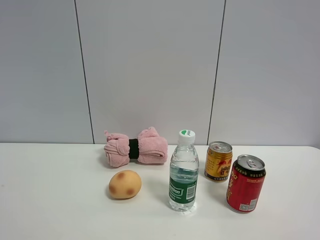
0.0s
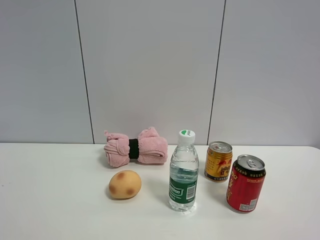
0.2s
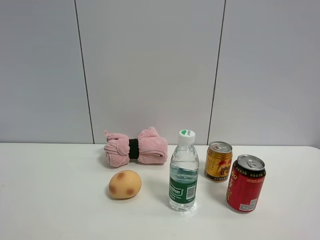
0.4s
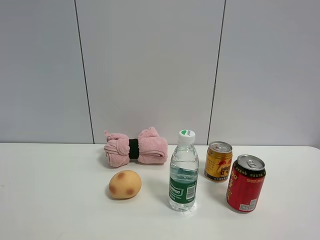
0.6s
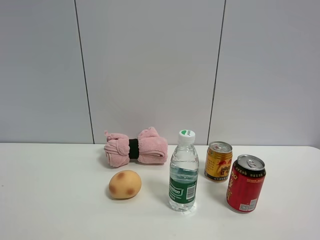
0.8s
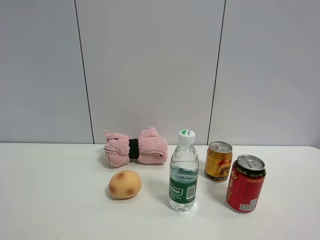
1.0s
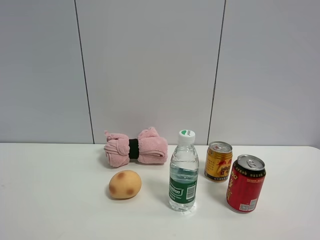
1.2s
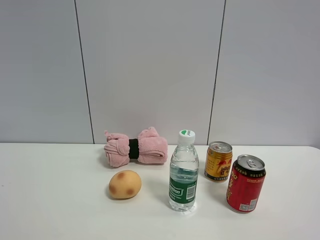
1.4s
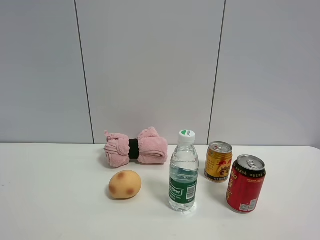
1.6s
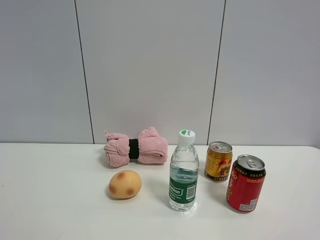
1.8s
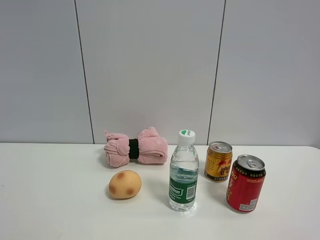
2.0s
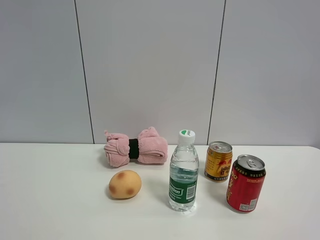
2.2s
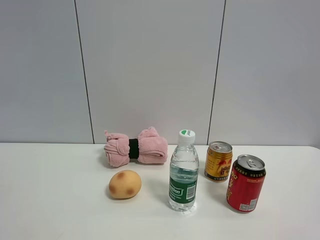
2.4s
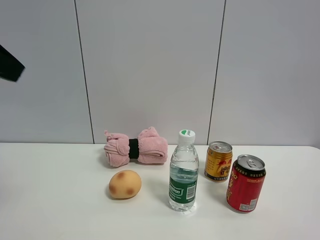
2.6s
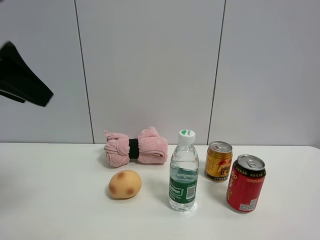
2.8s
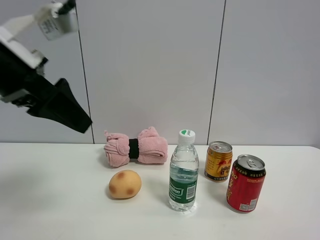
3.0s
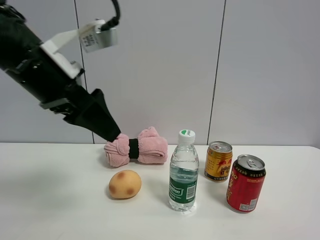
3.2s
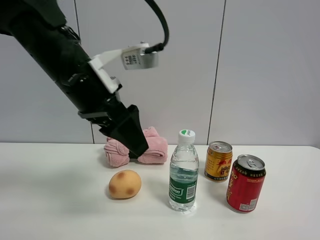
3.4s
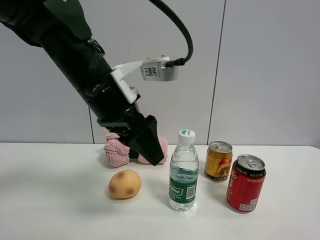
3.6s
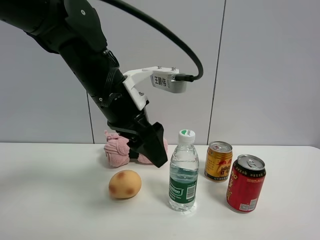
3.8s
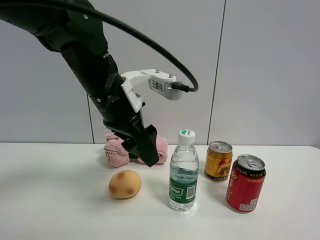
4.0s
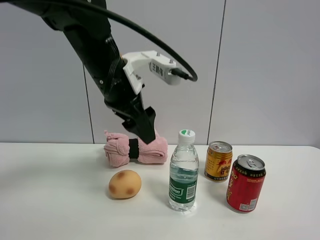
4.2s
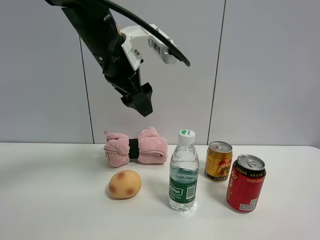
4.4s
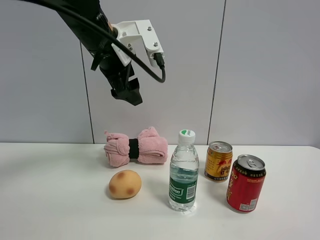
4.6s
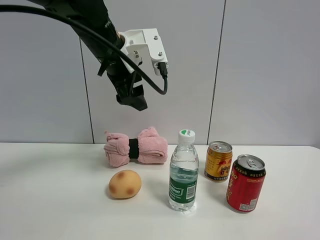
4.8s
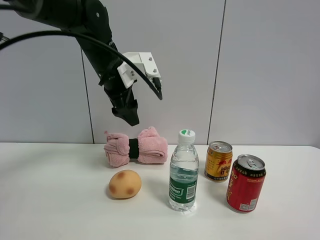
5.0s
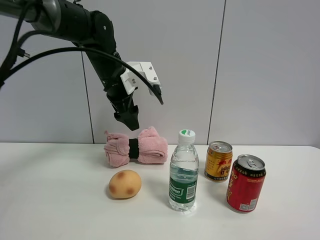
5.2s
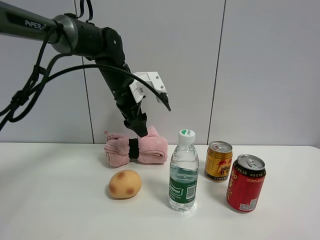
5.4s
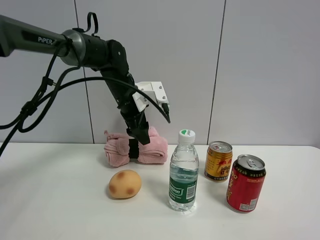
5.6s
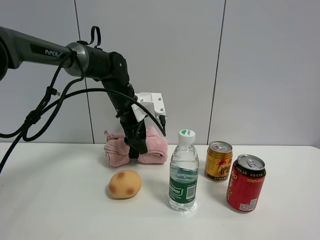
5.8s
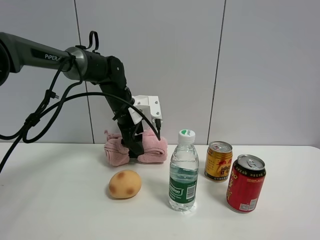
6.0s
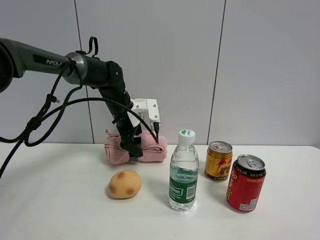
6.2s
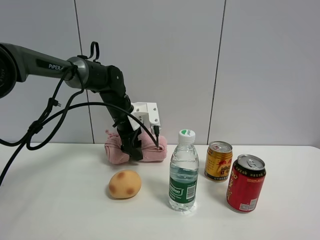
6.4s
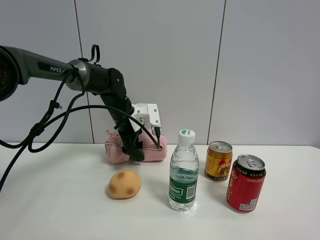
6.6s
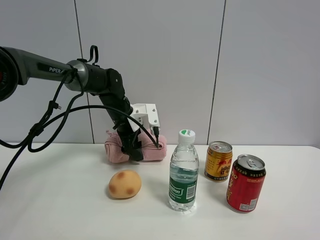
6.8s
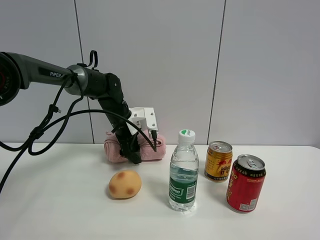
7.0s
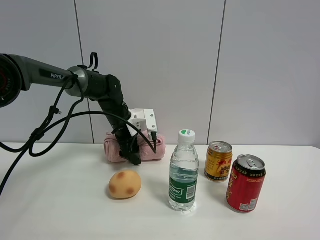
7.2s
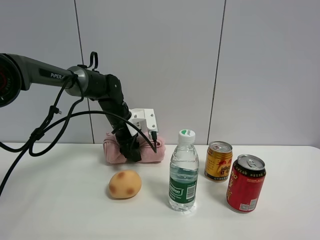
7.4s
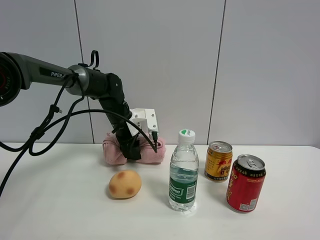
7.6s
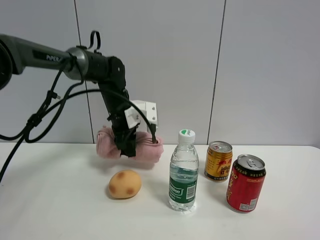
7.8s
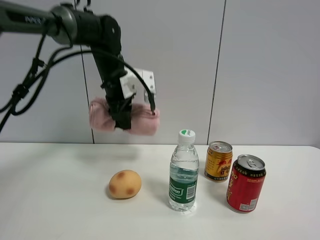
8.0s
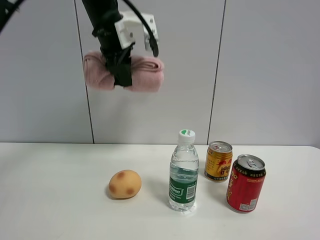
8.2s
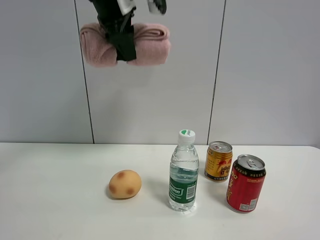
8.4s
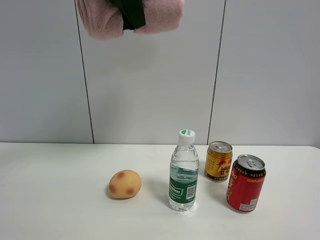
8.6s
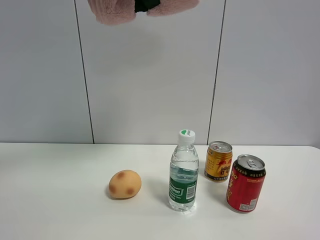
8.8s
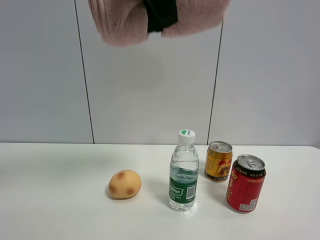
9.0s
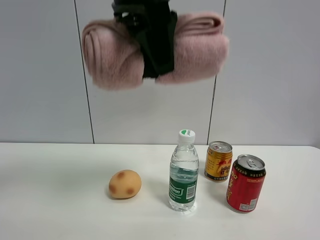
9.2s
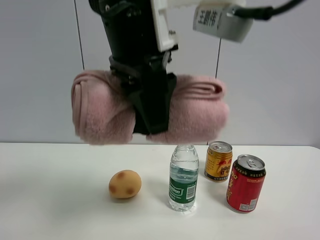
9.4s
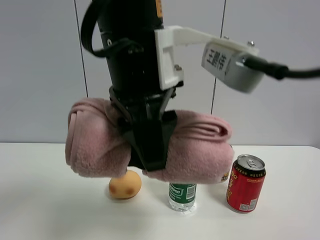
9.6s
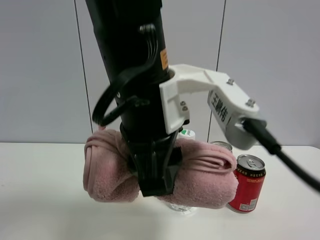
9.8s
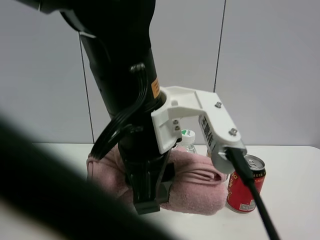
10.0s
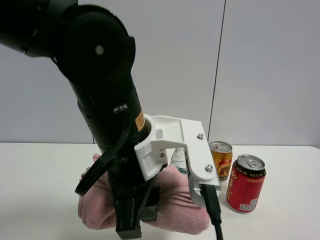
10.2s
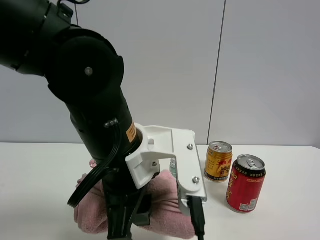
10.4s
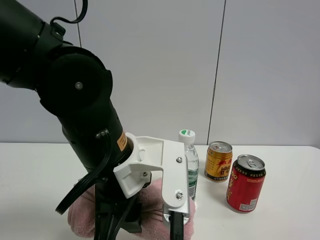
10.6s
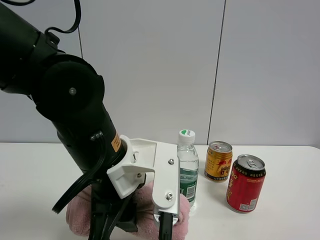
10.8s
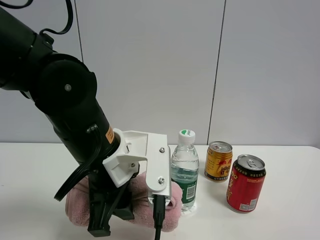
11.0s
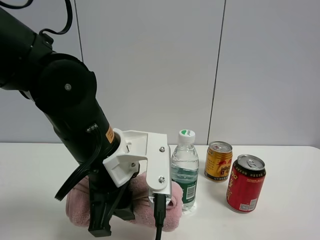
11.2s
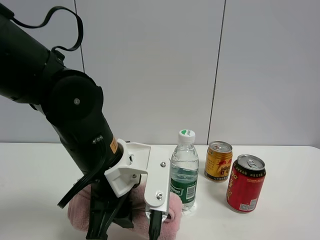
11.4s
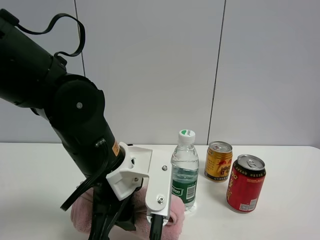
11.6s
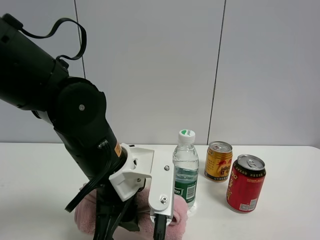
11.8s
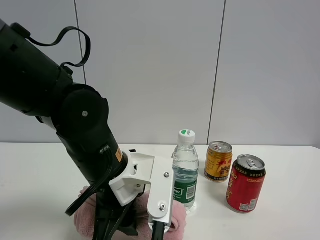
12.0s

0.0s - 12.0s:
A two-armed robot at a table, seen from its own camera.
Task of the whole recording: the gripper move the object.
Step, 0.0s - 7.4s: Grasp the pink towel with the left gripper.
1.6s - 3.0s: The left gripper moves forward and to the right, about 30 cm.
3.0s - 4.4s: The left gripper travels to the right and forward by roughly 15 cm.
4.4s - 6.0s: The left gripper travels downward and forward by some 20 cm.
6.0s - 7.6s: The left gripper closes.
7.6s - 9.0s: The left gripper heads upward and backward, covering some 40 cm.
9.0s - 10.4s: The left gripper moves downward, roughly 25 cm.
10.4s - 12.0s: The left gripper changes place by roughly 5 cm.

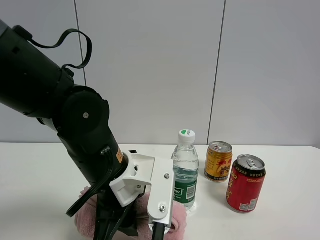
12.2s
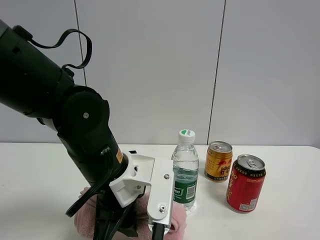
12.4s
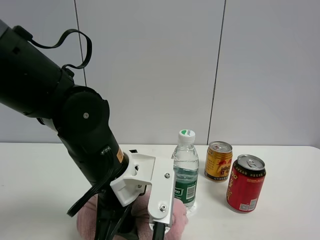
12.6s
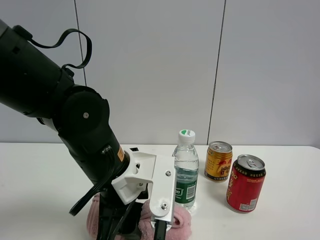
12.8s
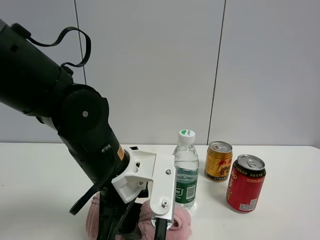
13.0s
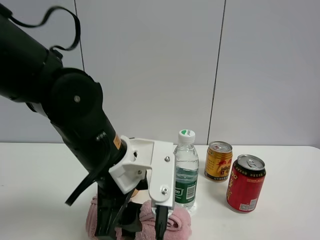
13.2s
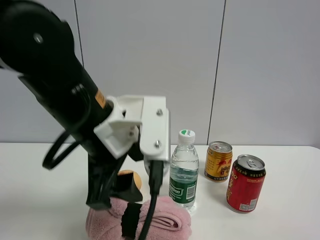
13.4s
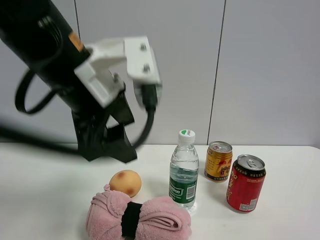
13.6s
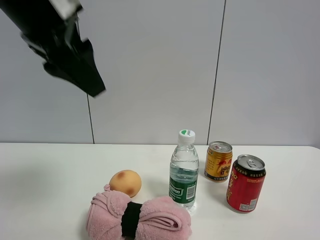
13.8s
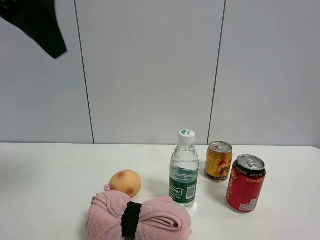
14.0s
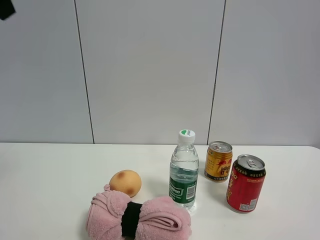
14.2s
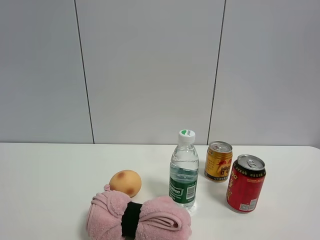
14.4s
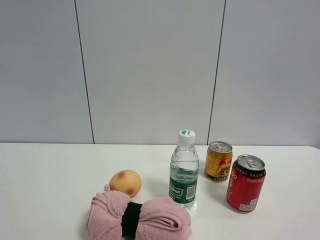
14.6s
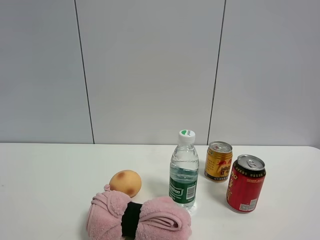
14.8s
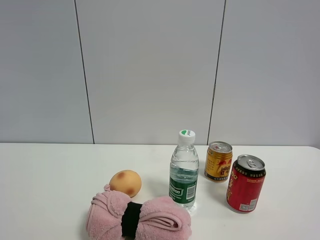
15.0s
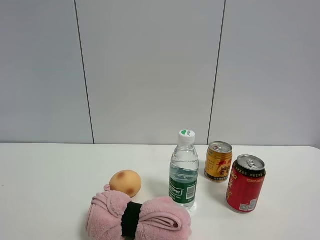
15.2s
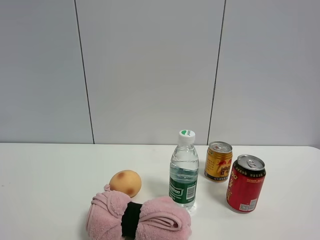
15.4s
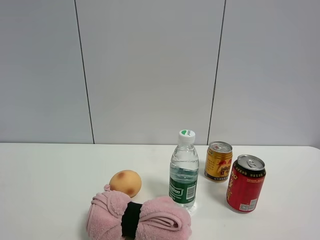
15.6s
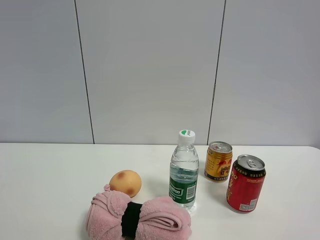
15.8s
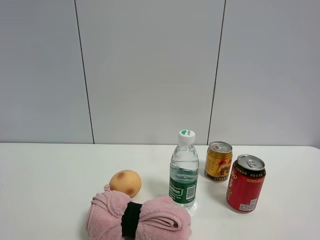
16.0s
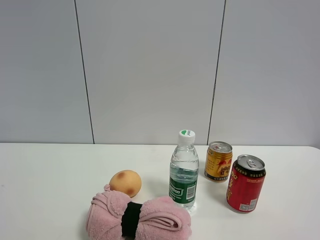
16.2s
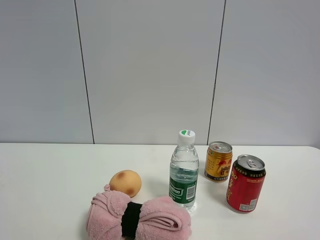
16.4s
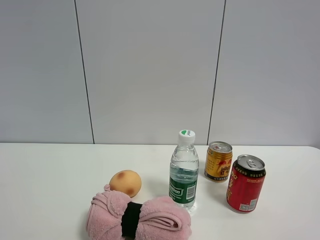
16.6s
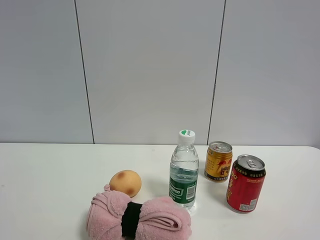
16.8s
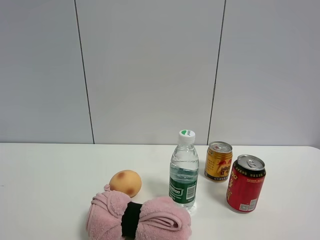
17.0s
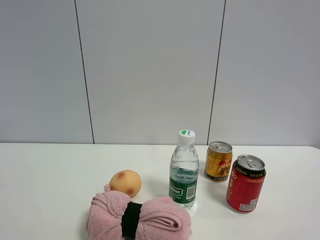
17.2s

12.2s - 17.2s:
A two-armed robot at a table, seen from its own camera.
Task of the whole recording: the gripper move the object.
12.2s - 13.8s: The left gripper travels upward by roughly 25 cm, and opens.
13.8s - 15.6s: The left gripper travels backward and to the left by about 30 cm.

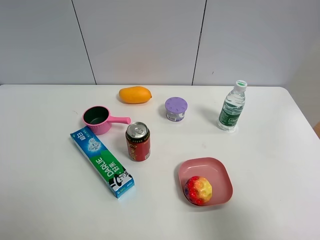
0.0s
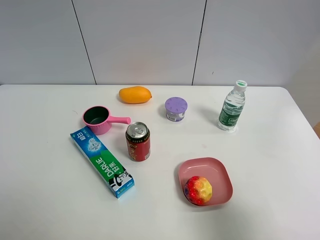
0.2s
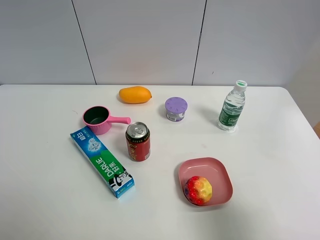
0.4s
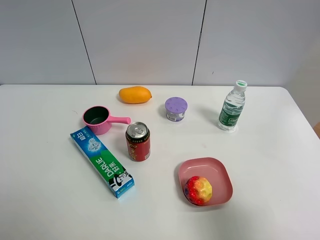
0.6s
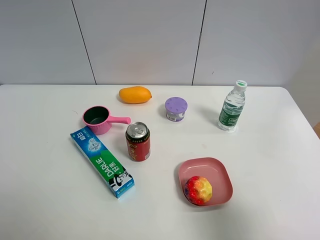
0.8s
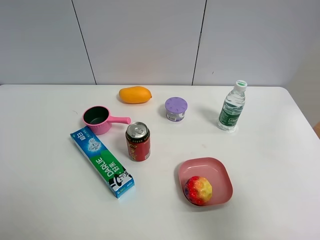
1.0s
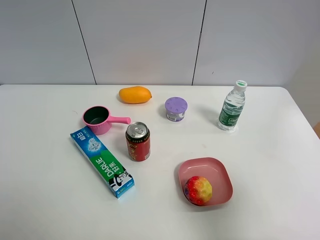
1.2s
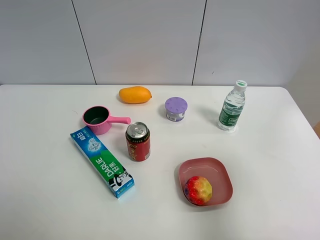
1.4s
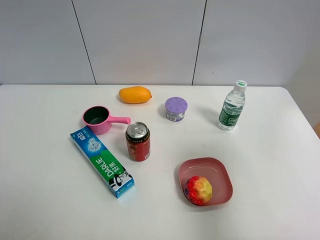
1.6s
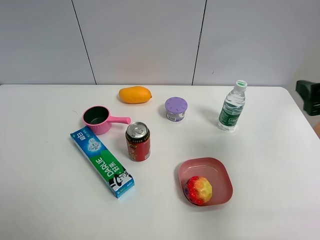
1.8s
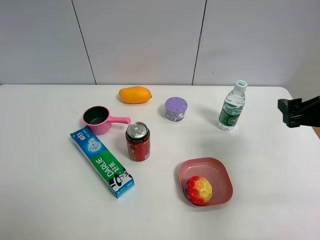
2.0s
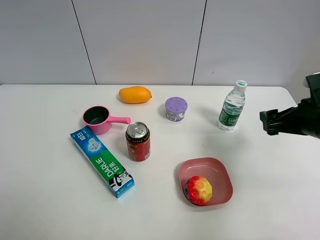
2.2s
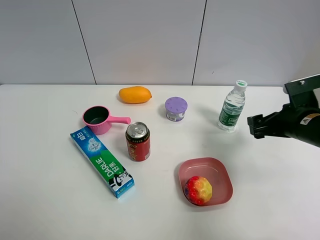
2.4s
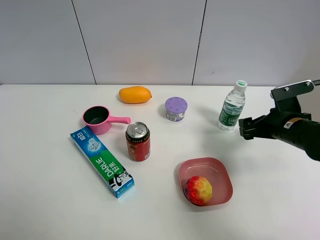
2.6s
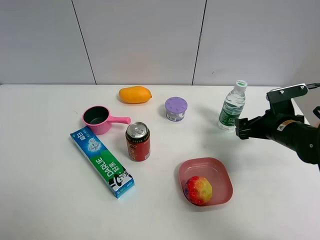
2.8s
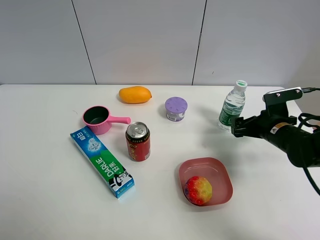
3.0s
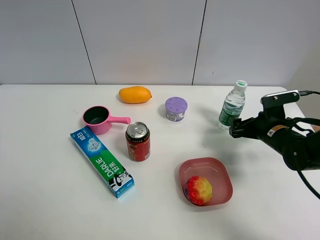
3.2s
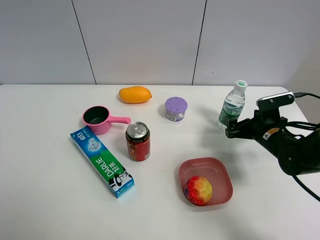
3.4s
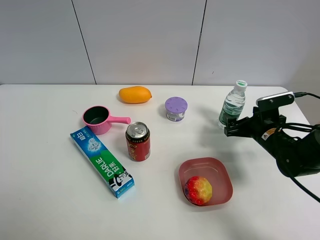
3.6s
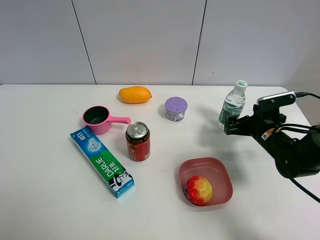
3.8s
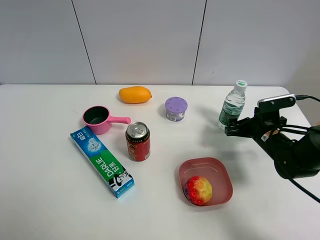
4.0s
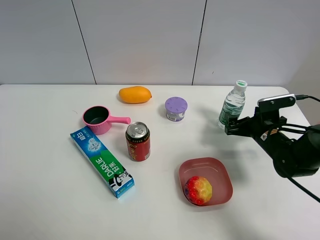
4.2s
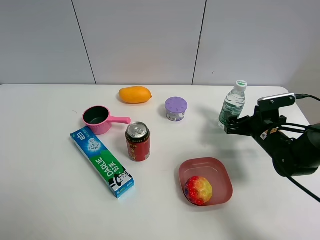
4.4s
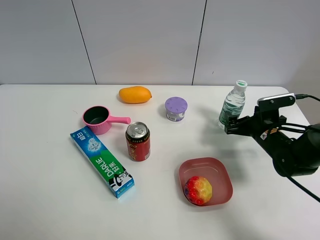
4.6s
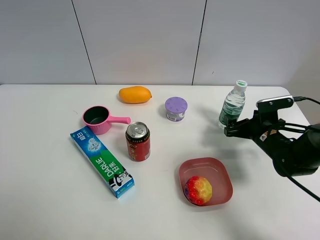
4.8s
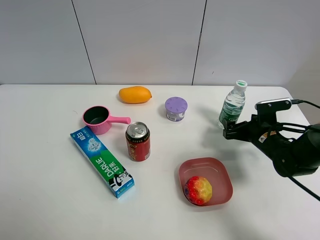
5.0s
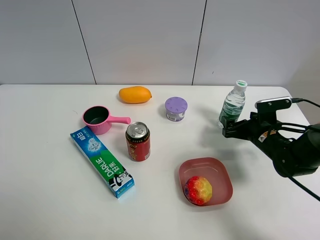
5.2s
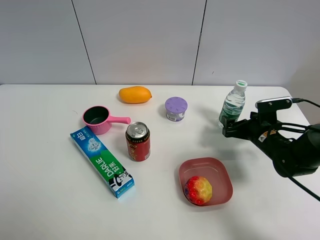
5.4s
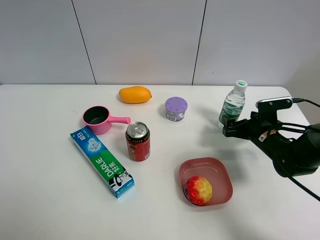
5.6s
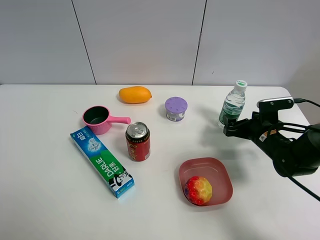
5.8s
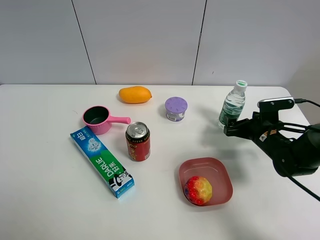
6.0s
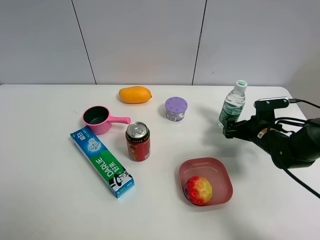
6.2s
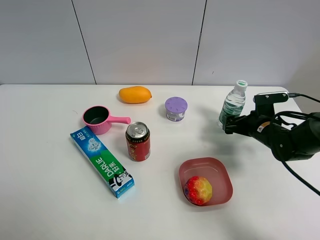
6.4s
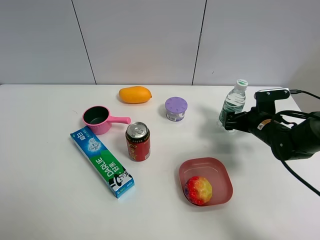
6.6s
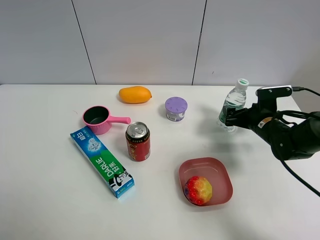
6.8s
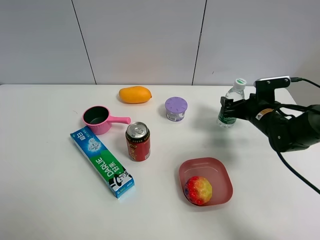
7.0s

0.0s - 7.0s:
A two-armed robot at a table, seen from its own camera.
Task of the whole recording: the gripper move the object.
0.0s - 1.4s: The right gripper is displaced forward and upward by some 10 cm, and closes and opens again.
1.4s - 2.8s: The right gripper goes approximately 30 cm downward and forward.
2.8s - 4.2s: The right gripper moves some 5 cm.
4.2s - 5.6s: The grippers move only a little.
5.6s - 7.0s: The right gripper ends up some 5 cm from where it was.
